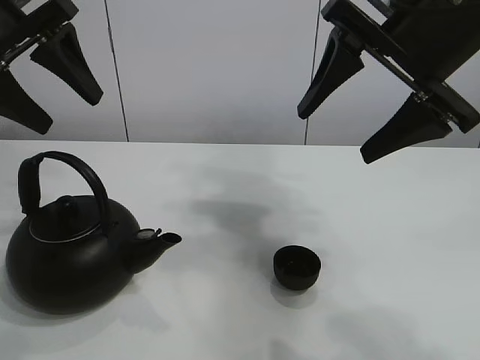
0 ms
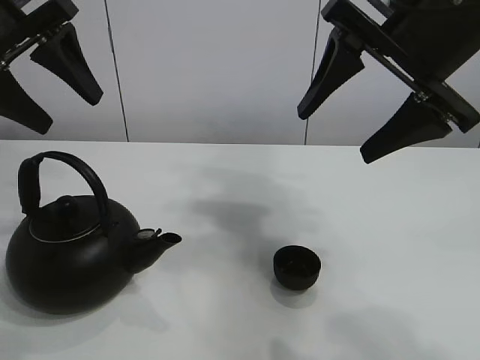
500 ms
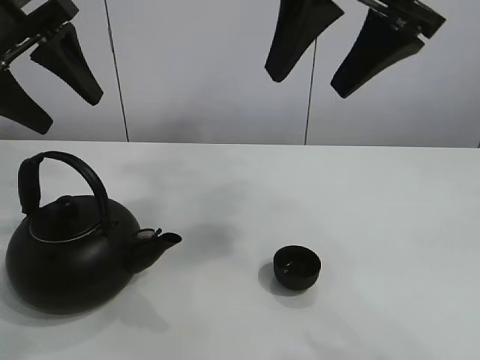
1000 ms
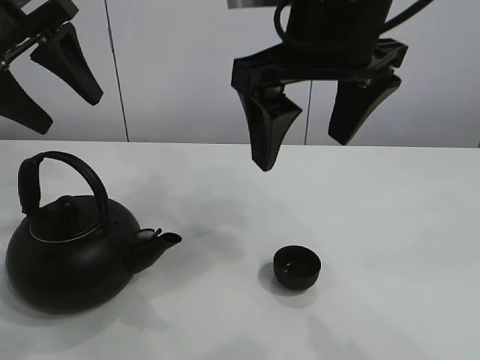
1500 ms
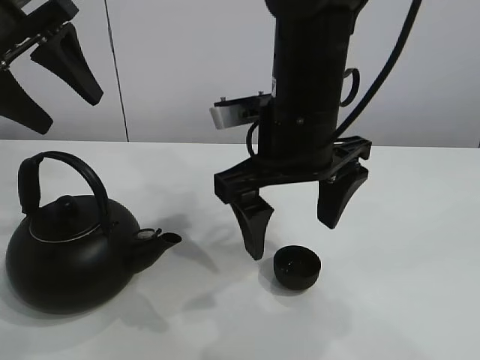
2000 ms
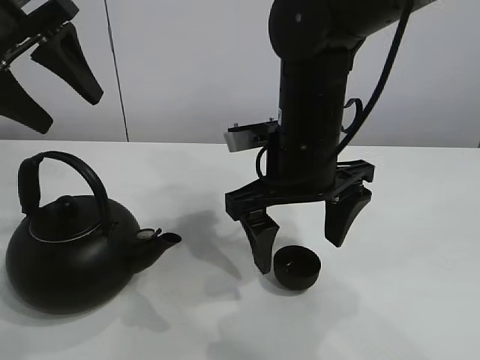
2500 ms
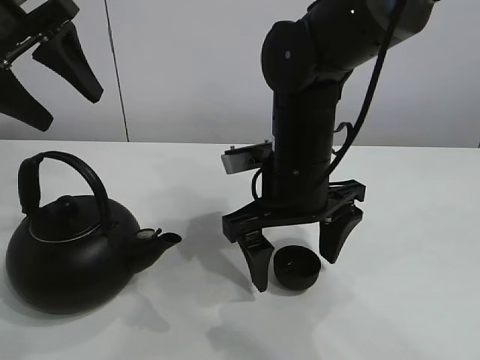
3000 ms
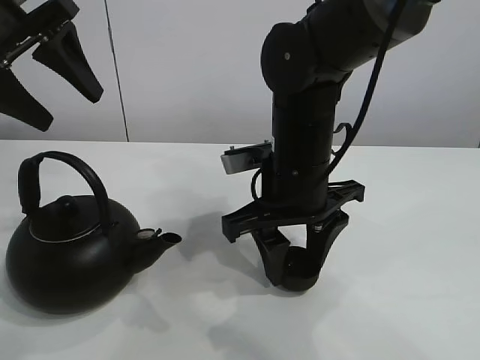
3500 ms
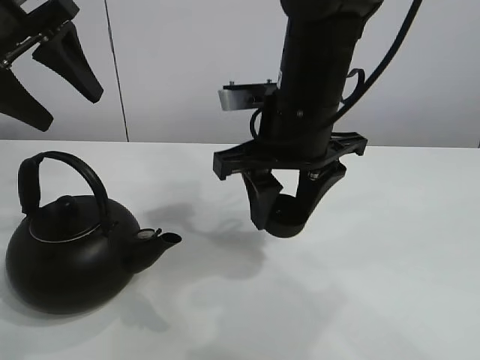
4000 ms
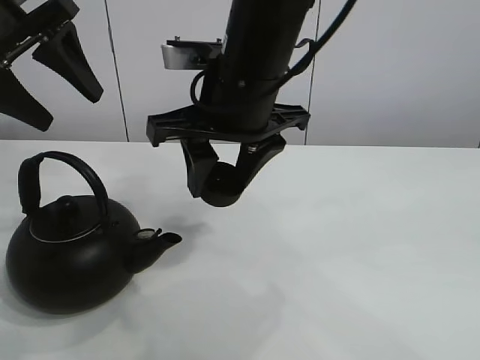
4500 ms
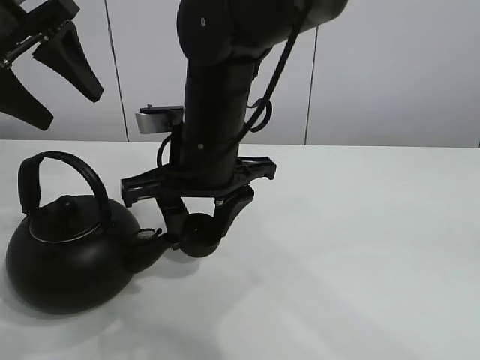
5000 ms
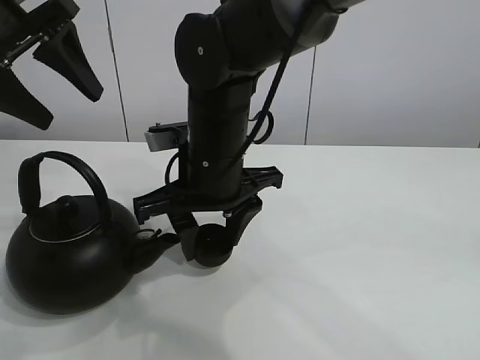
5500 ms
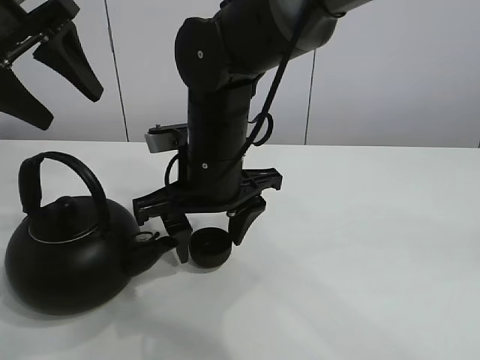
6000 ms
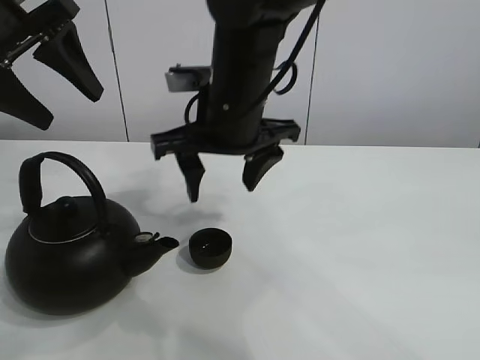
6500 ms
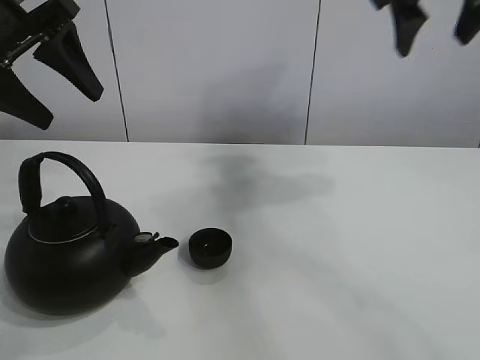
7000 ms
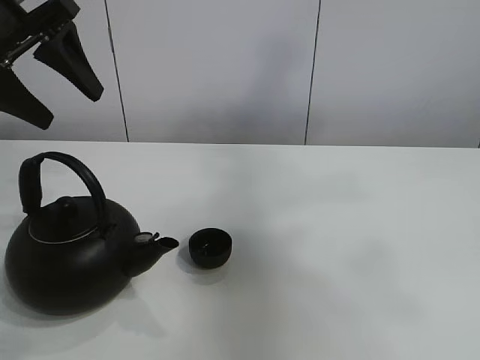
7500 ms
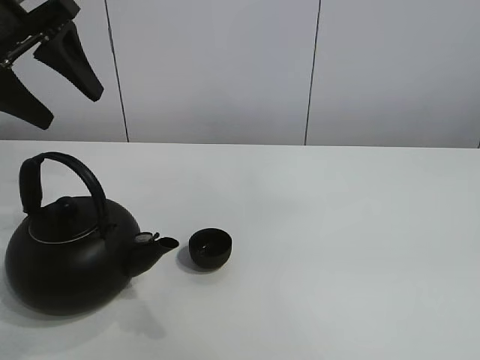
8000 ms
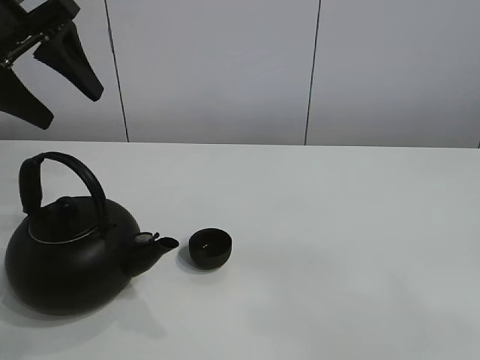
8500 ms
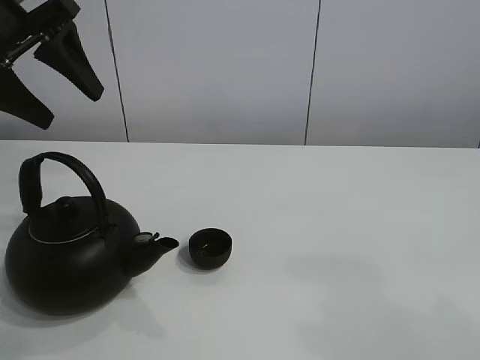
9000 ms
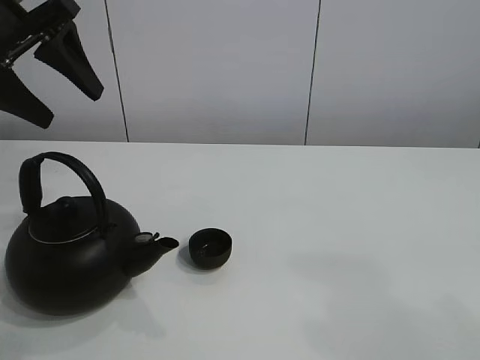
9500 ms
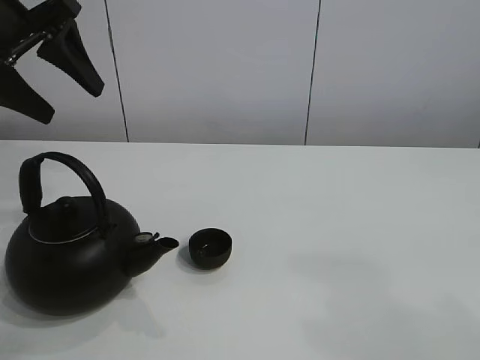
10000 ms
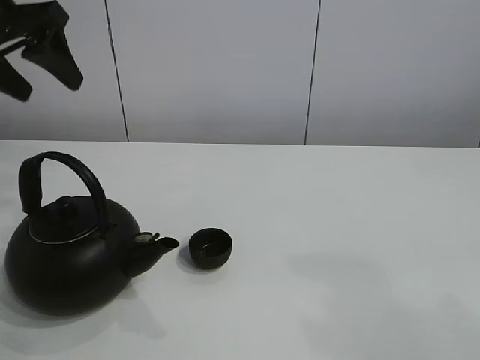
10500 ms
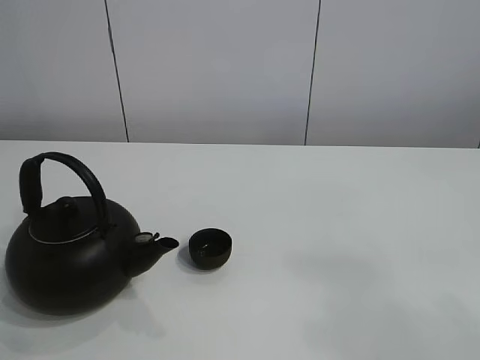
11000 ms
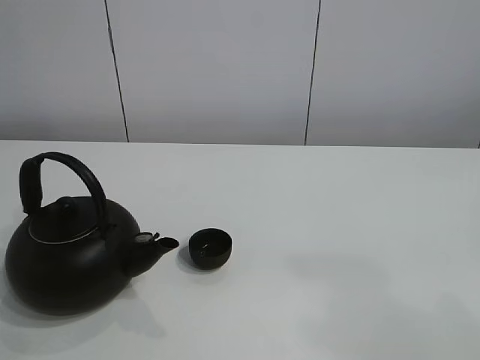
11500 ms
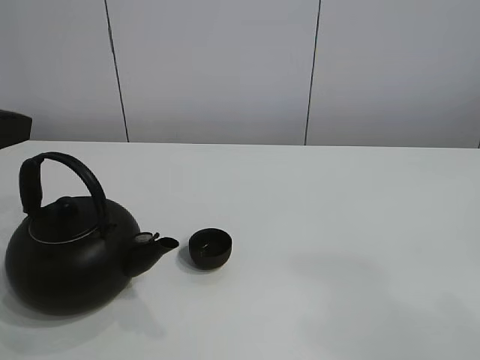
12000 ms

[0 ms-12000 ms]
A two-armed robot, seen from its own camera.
Task of the whole recording: pour tea into the teacup.
Step, 0 ms to 3500 ms: Pick up the teacup with the right gripper.
Step, 4000 ms to 6000 ms: Place the teacup in the center of view with the right gripper.
2000 ms to 4000 ms: The right gripper closes.
4000 ms to 6000 ms: The right gripper is displaced to the left and downward by approximately 10 cm.
6000 ms to 8000 ms: The right gripper shifts approximately 60 cm backward, upward and to the right.
8000 ms to 10000 ms: The right gripper travels downward by some 25 cm.
10000 ms to 12000 ms: The left gripper is displaced backward by approximately 15 cm, and goes upward and returns, some 15 cm each way.

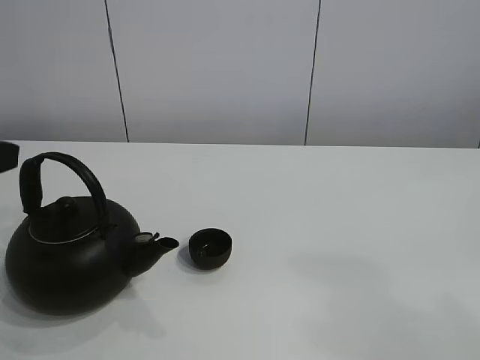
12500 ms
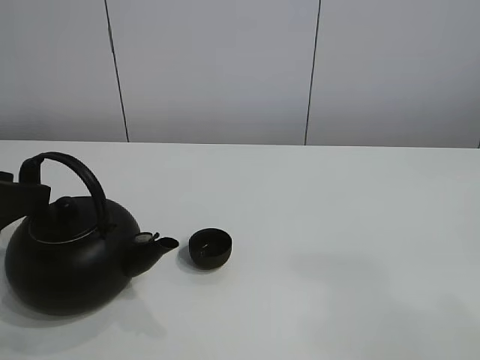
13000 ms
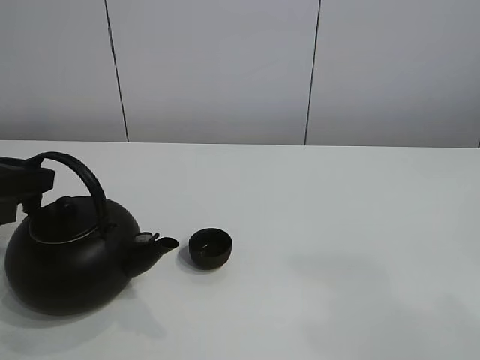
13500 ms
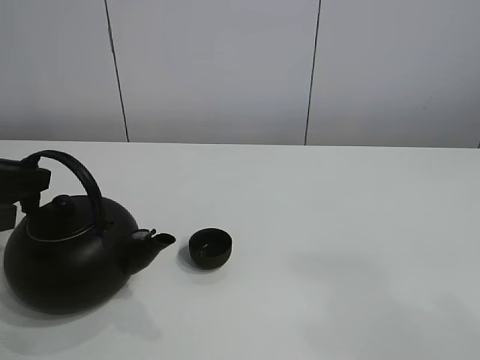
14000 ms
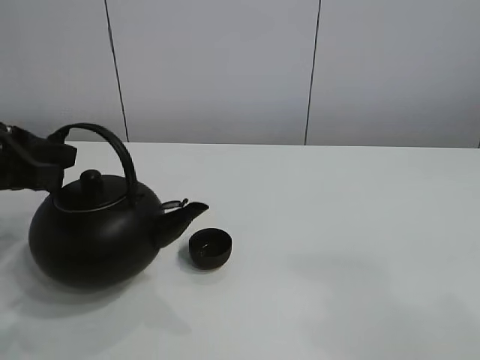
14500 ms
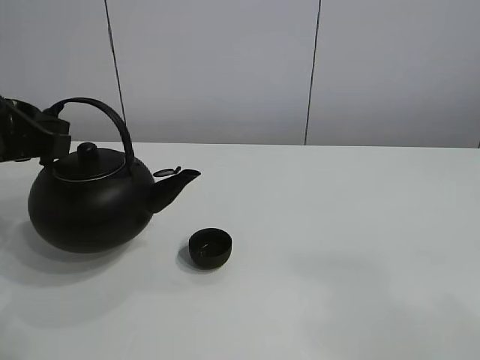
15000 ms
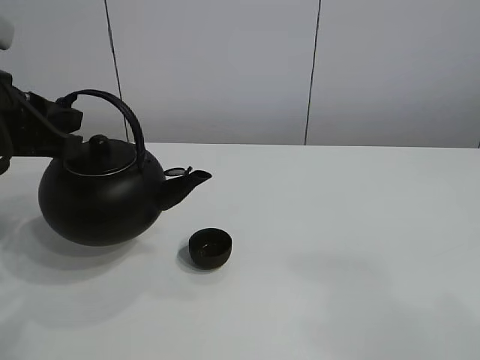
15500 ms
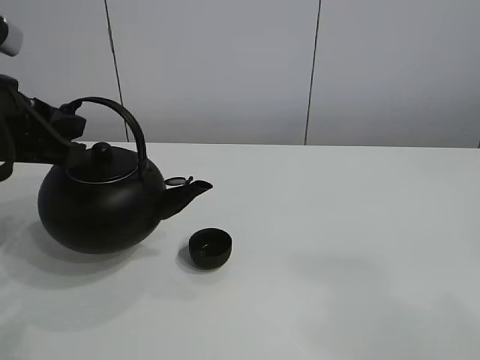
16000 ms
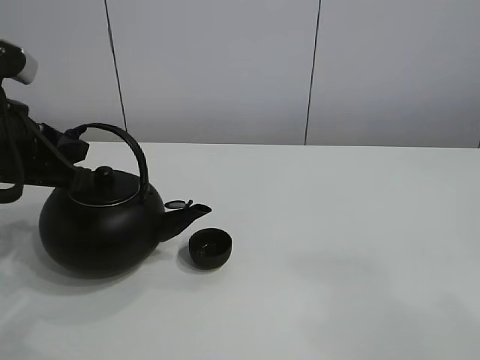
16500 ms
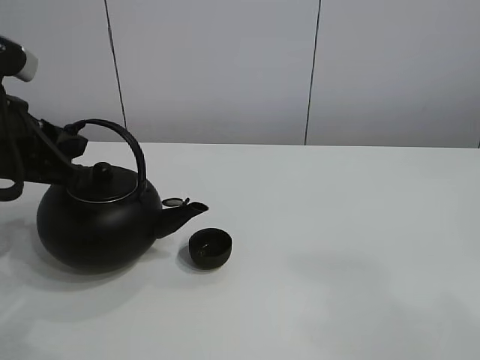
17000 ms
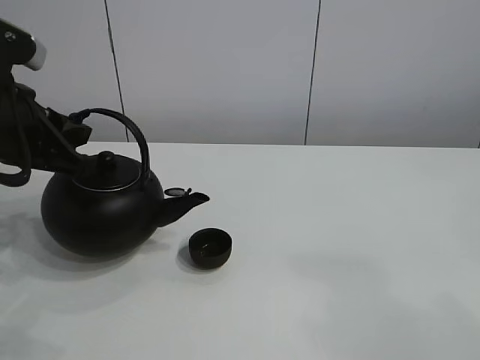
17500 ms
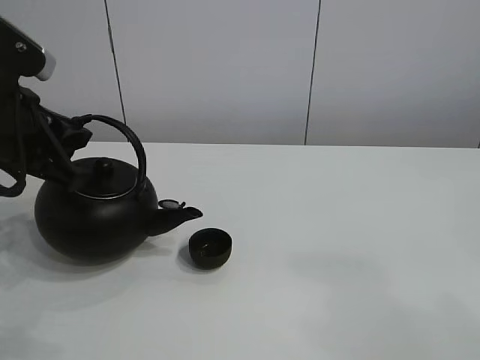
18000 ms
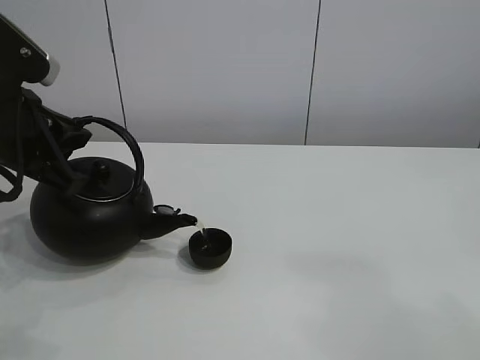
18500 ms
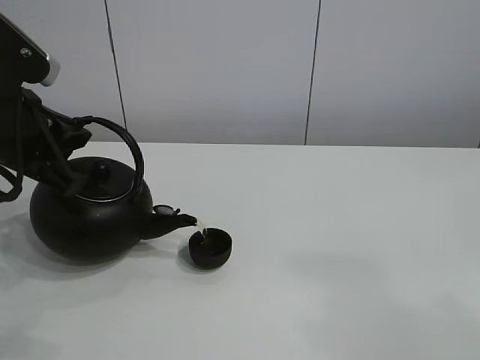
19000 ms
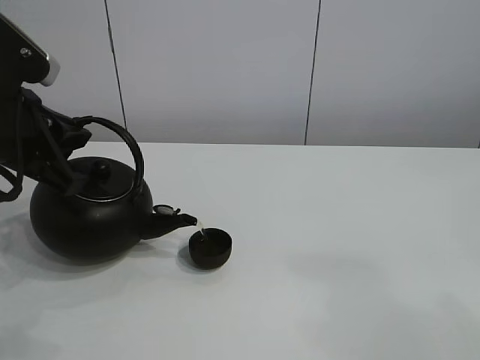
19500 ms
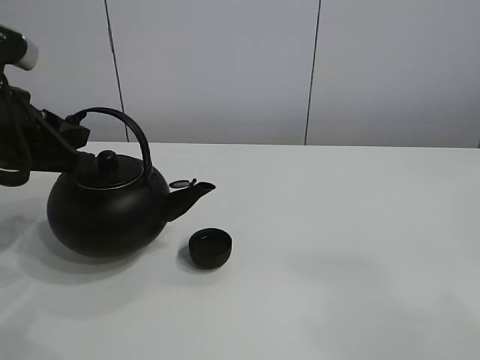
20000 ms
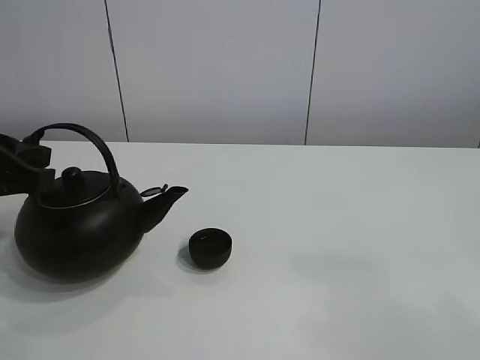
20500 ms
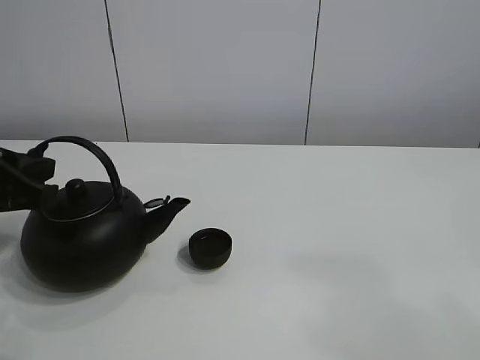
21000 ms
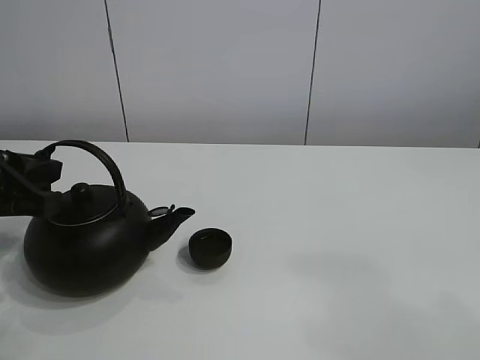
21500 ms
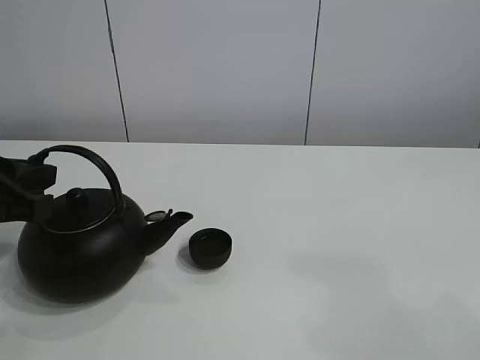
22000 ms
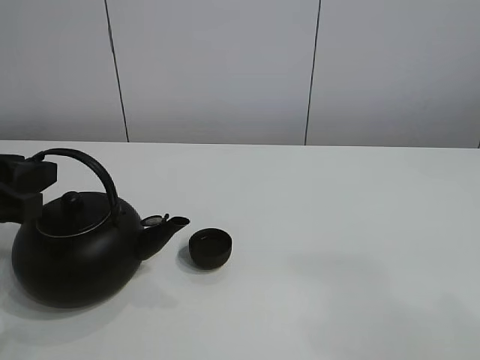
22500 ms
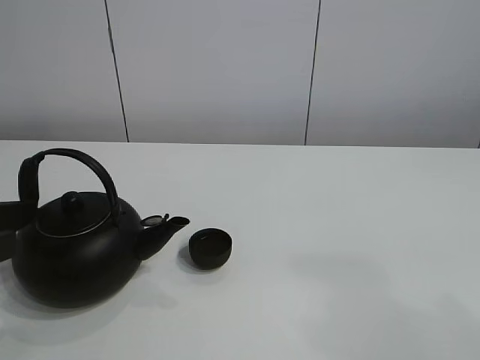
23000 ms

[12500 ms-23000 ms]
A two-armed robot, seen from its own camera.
Task of the whole recording: pour tea into the teacup.
Step, 14000 ms to 19500 ms: Pour tea into the teacup with the left gripper.
12500 ms to 14500 ms: The left gripper shifts by some 5 cm, and closes.
14500 ms to 16500 ms: The grippers stay close to where they were, moving slightly.
16500 ms to 19000 ms: There are only small adjustments of the grippers.
19000 ms to 21000 ms: The left gripper shifts by some 5 cm.
21000 ms to 23000 ms: The left gripper goes some 5 cm backward, and opens.

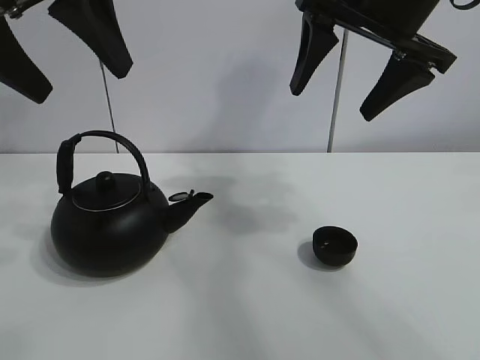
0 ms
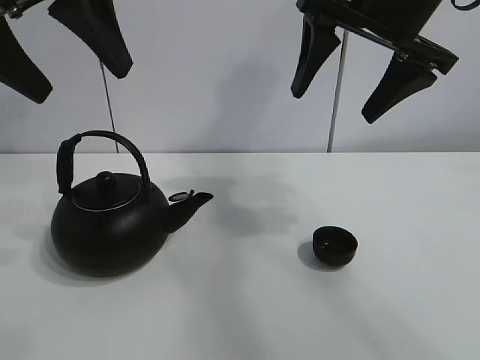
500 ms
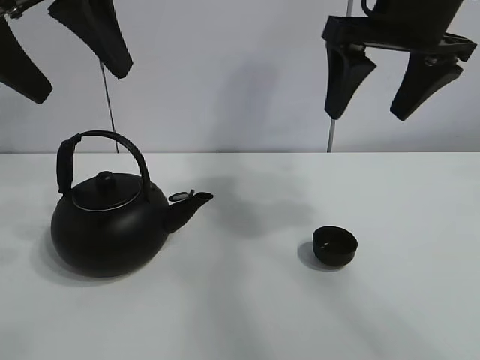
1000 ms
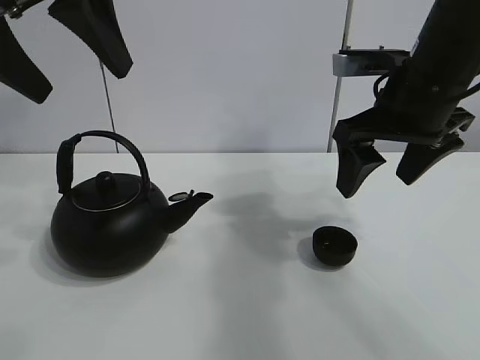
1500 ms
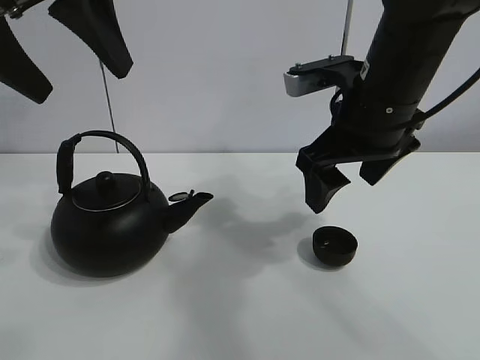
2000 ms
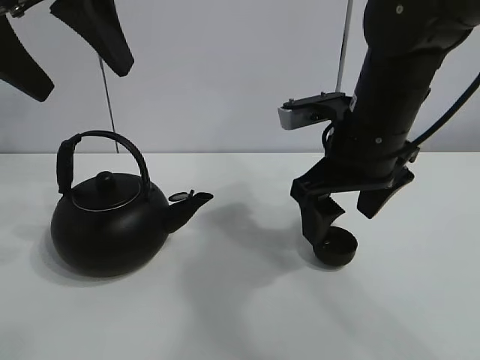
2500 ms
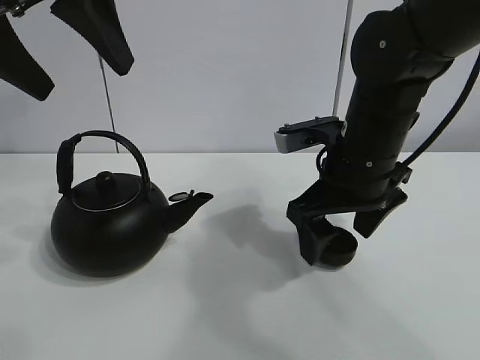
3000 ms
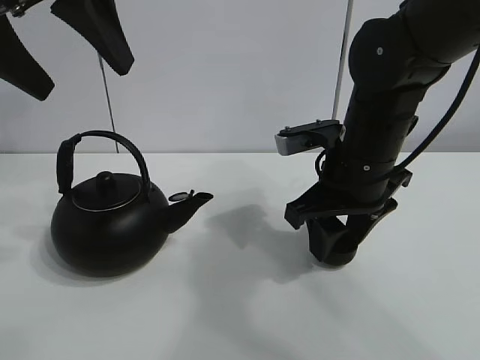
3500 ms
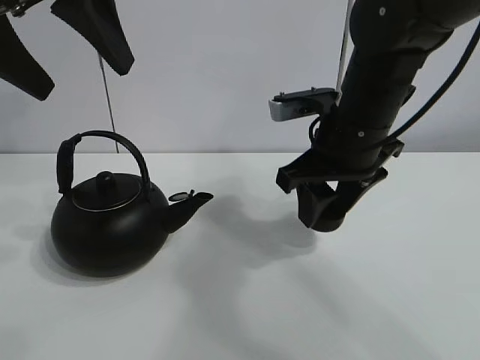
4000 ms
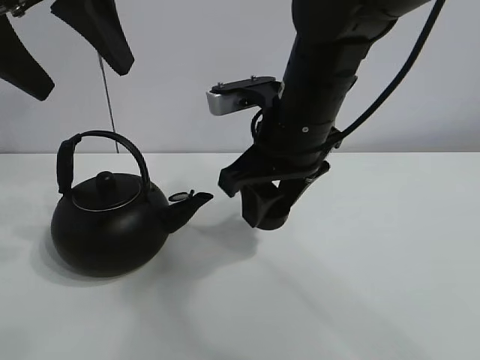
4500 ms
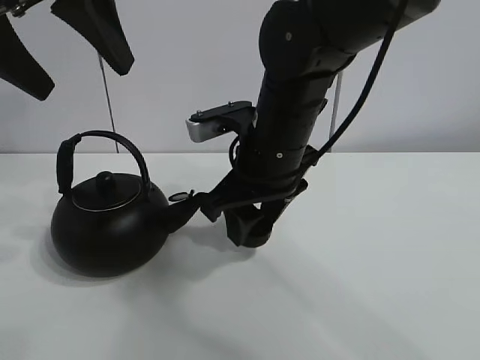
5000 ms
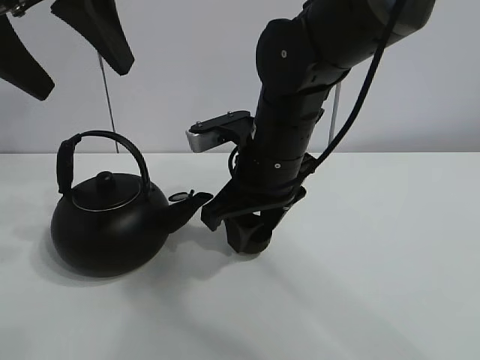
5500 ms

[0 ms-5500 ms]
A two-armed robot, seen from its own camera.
Task of the whole recording: pour tea into the teacup.
Step, 0 ms to 3000 ms: Pick up the teacup with the right gripper.
2000 ms to 3500 ms: The right gripper moves downward, approximately 5 cm, and closes its fingers.
3500 ms to 5500 ms: The right gripper is displaced to the left by approximately 10 cm.
